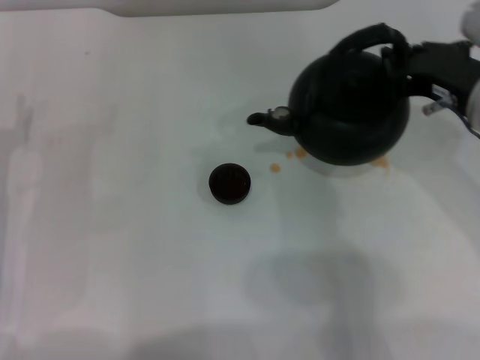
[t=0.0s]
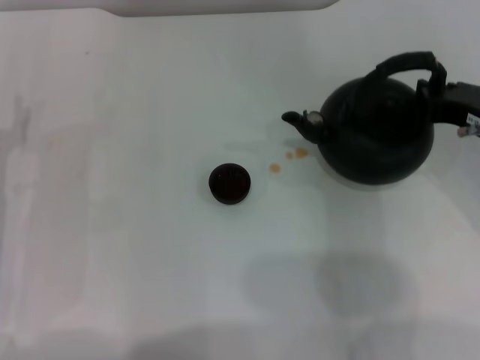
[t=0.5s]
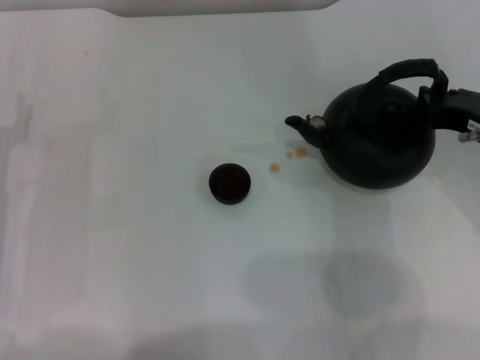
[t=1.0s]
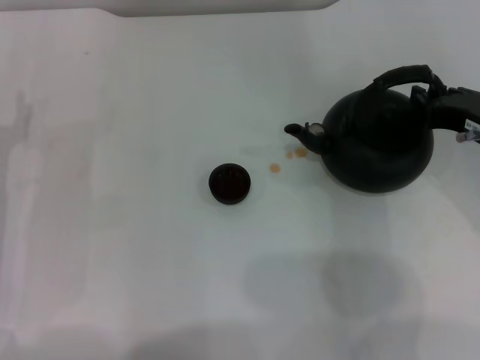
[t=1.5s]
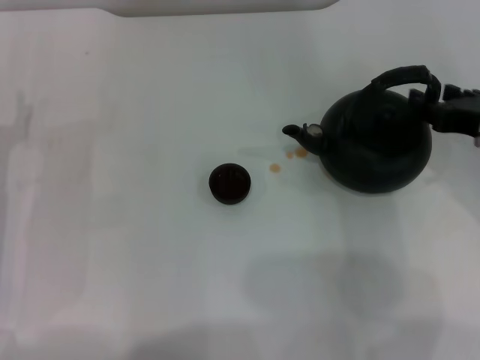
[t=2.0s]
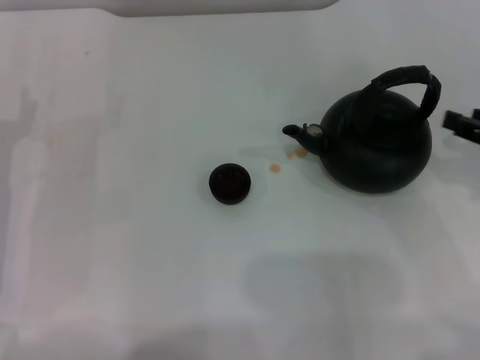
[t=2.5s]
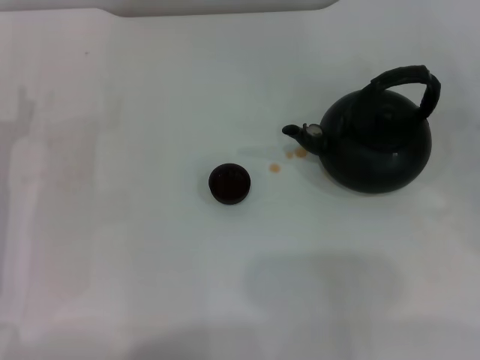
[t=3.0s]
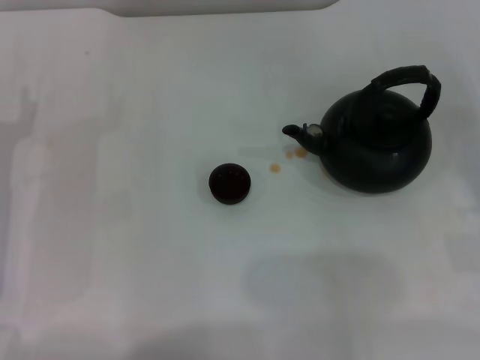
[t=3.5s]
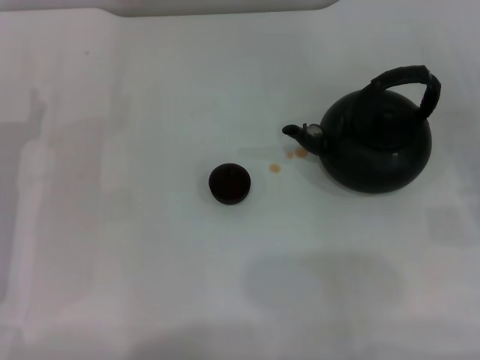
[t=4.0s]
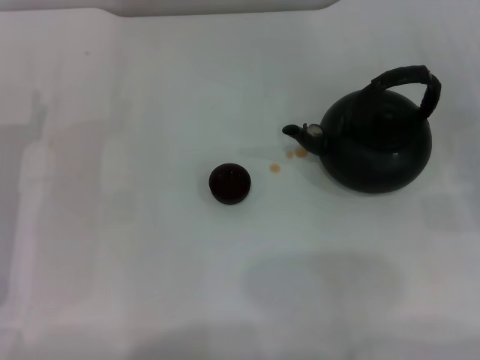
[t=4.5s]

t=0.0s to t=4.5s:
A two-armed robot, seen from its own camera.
Task of the whole recording: Grasp the handle of the teapot with one hand and pour tea into the teacup.
Step, t=0.0s to t=2.5s: Put down the teapot with the right gripper.
t=0.0s to t=2.0s: The right gripper goes some 5 cm to the right, and opens its fingers.
t=2.0s to t=4.5s: The right gripper shifts some 15 cm to the right and downward.
